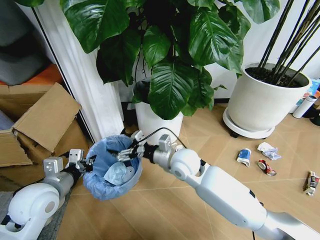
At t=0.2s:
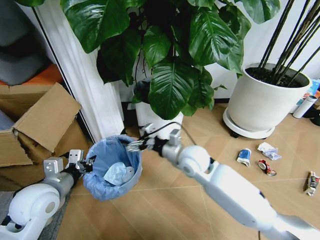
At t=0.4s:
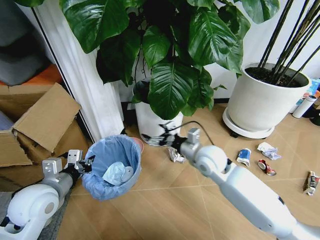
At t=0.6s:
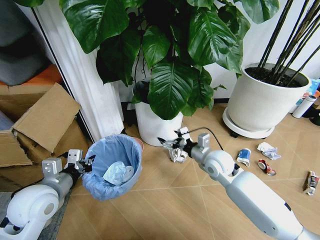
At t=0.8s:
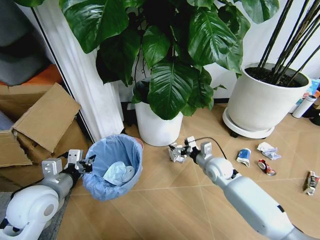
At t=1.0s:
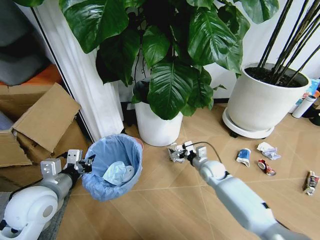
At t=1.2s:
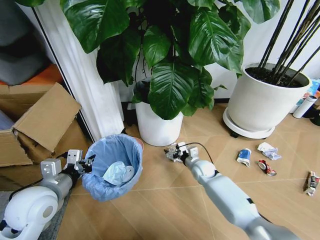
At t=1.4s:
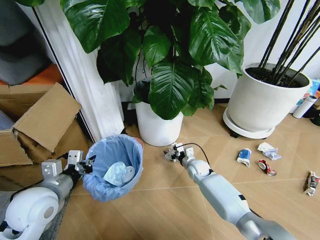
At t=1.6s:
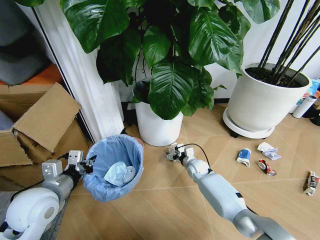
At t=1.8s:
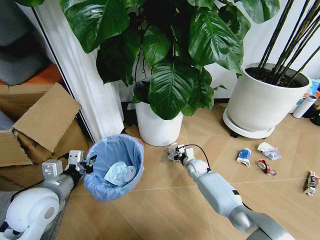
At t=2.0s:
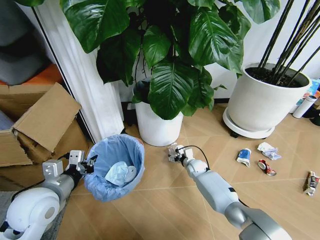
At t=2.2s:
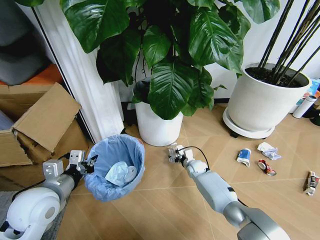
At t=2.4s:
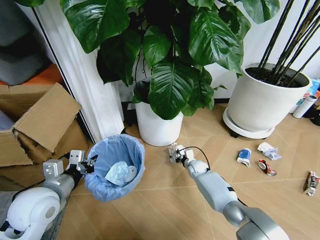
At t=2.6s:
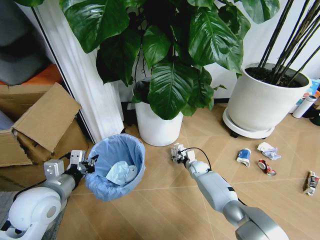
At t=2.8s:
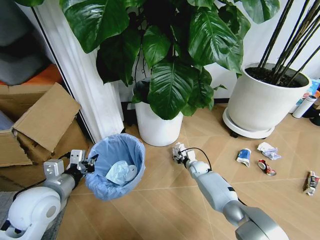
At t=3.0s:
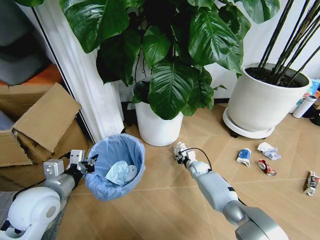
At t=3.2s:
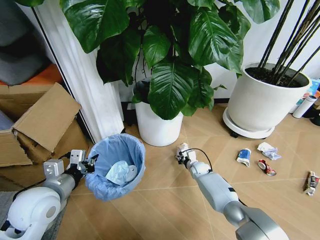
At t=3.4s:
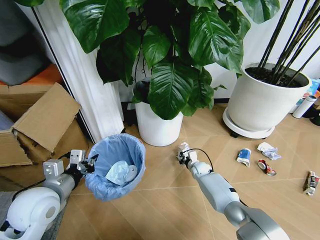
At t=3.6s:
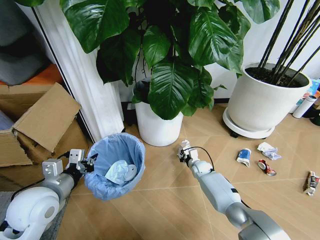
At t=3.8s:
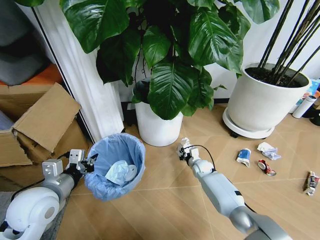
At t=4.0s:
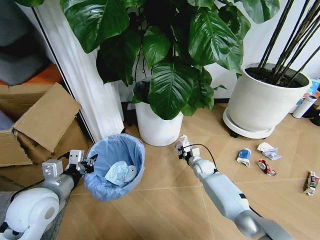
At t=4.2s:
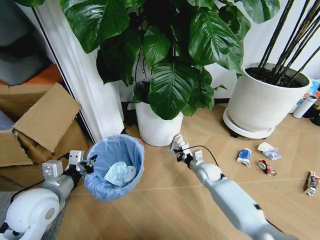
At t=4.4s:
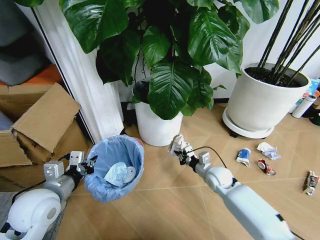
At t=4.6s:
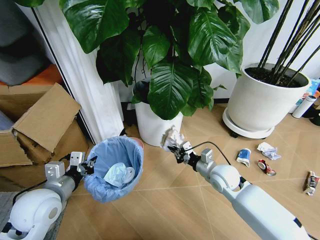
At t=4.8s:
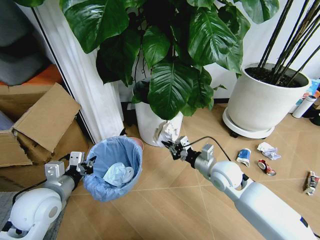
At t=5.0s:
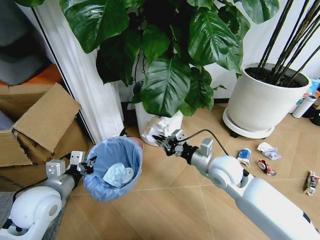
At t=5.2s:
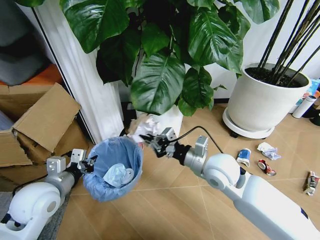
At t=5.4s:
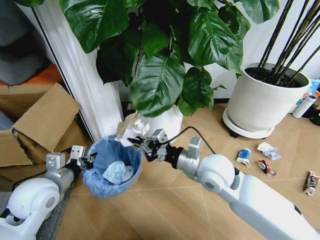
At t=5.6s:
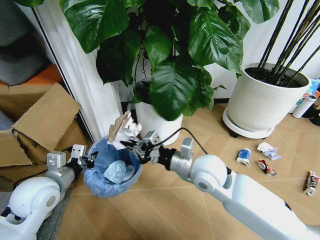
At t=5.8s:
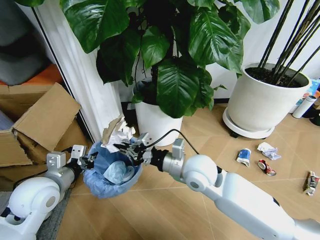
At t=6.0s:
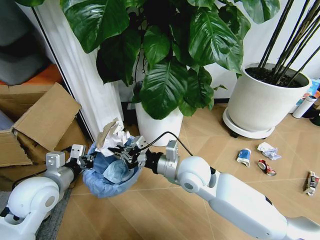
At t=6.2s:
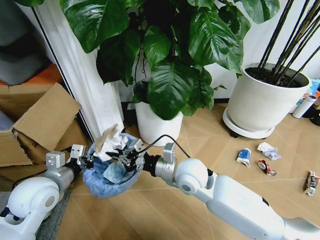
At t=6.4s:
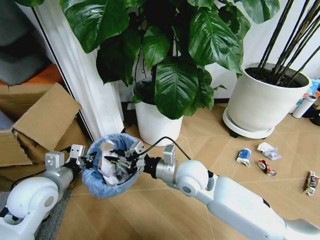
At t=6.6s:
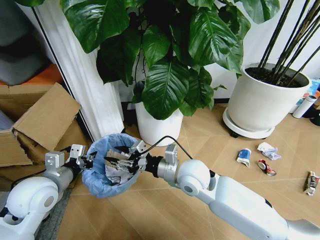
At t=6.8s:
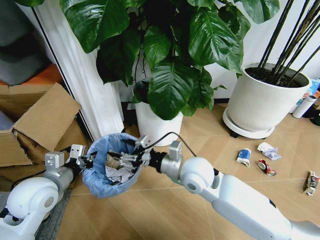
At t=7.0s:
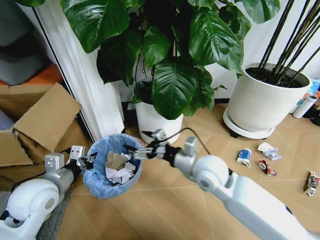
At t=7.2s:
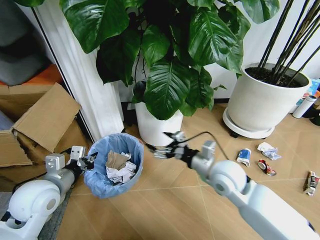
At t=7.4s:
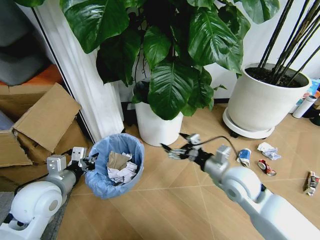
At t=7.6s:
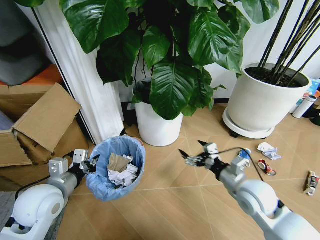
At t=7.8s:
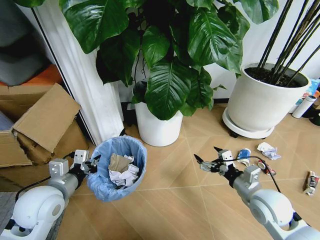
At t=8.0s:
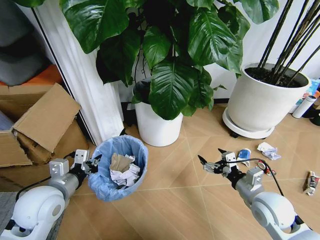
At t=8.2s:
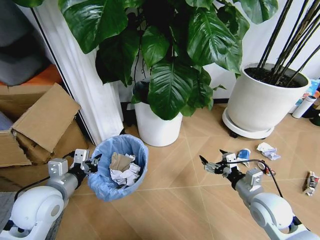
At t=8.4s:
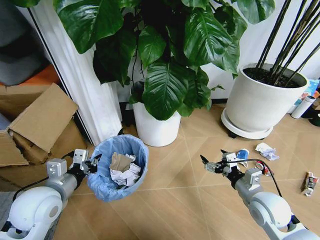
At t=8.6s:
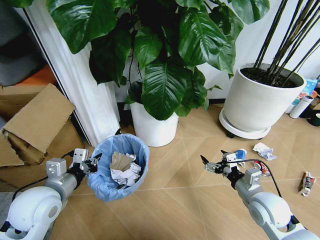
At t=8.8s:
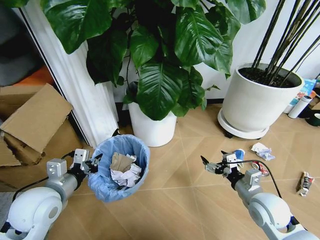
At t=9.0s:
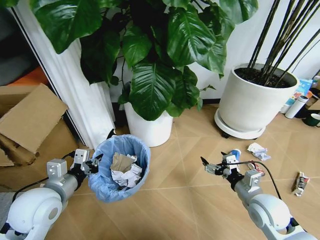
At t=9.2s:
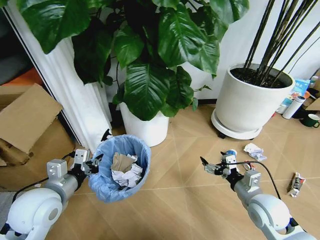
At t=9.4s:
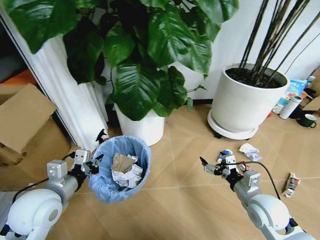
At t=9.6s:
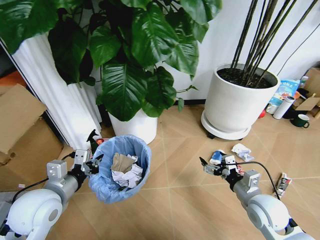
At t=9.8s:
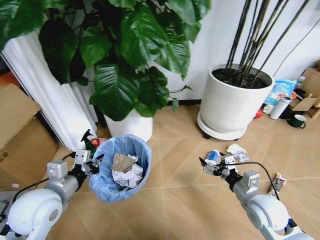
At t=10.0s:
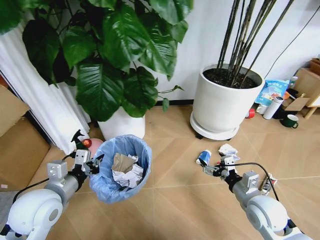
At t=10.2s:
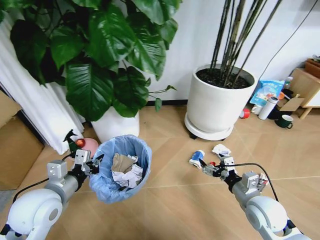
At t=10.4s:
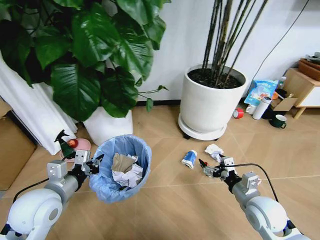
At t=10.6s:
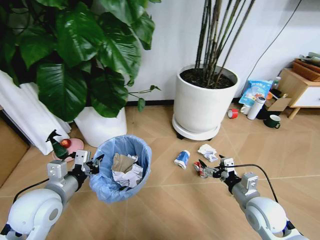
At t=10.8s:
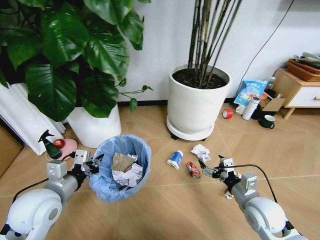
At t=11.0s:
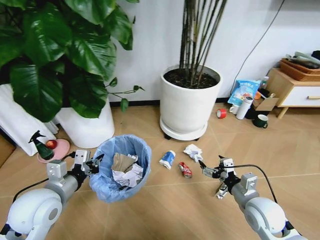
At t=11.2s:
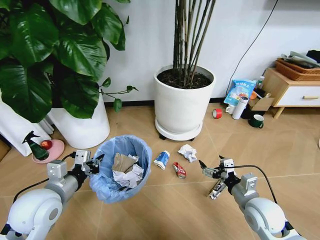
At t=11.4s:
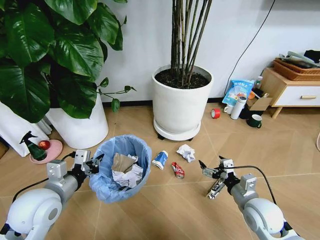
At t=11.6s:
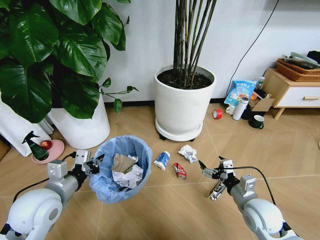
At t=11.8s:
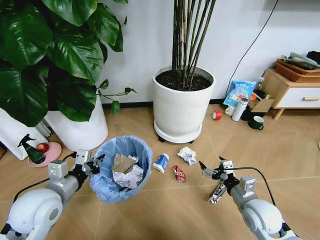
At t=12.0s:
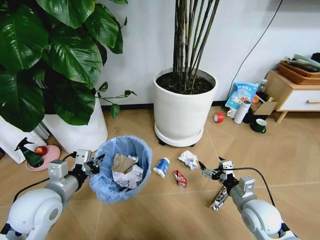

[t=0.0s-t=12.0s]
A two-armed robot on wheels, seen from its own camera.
Task of the whole recording: Pick up the trash bin and place the garbage on the floor into it.
t=0.0s to t=1.6s: The right gripper moves downward, to the right and forward, approximately 25 cm.
t=1.6s to t=3.0s: The right gripper ends up some 5 cm from where it was, and closes.
t=3.0s to t=4.4s: The right gripper moves upward and backward, some 15 cm.
t=4.4s to t=6.0s: The right gripper is displaced upward and to the left by some 25 cm.
t=6.0s to t=7.6s: The right gripper travels to the right by some 20 cm, and opens up.
t=7.6s to t=9.0s: The right gripper ends up about 5 cm from where it was.

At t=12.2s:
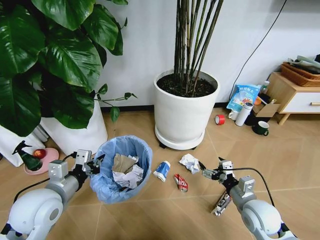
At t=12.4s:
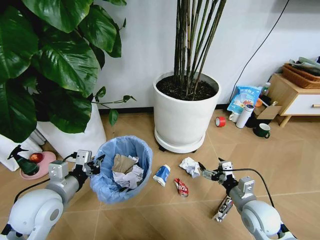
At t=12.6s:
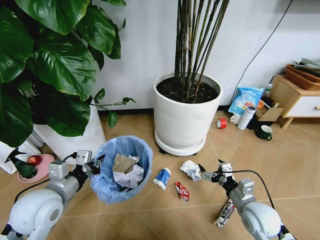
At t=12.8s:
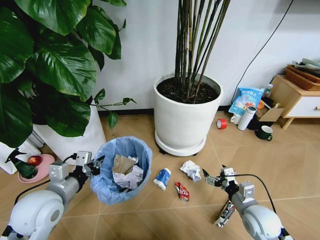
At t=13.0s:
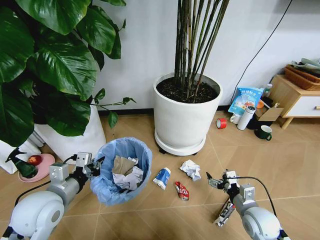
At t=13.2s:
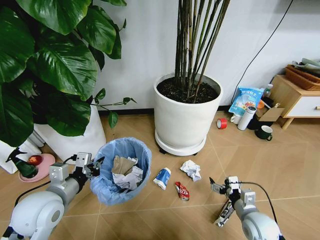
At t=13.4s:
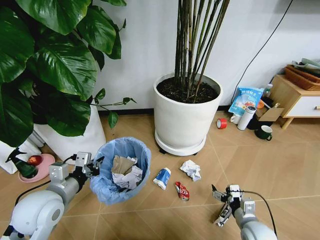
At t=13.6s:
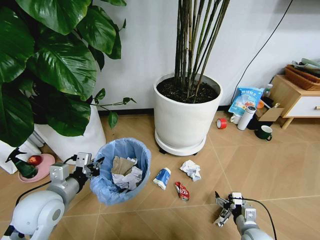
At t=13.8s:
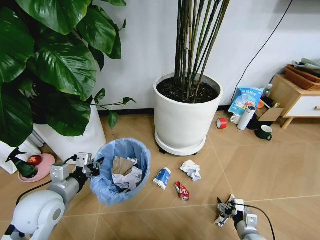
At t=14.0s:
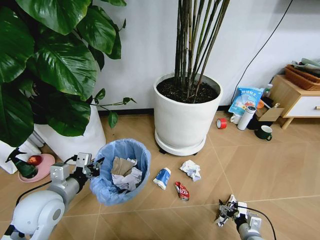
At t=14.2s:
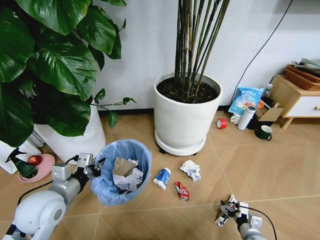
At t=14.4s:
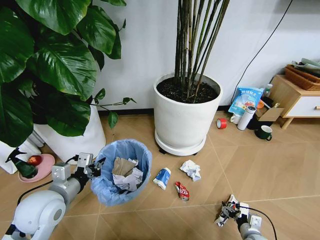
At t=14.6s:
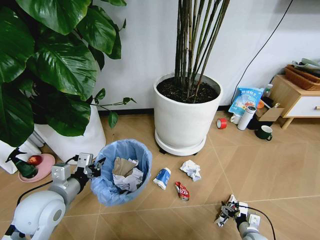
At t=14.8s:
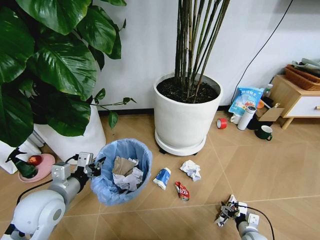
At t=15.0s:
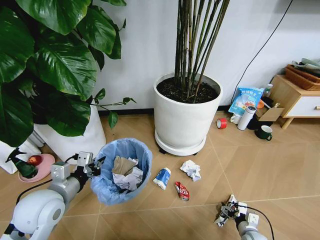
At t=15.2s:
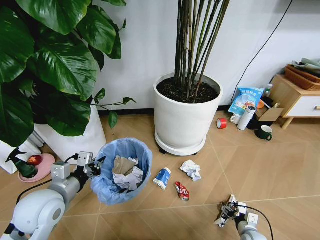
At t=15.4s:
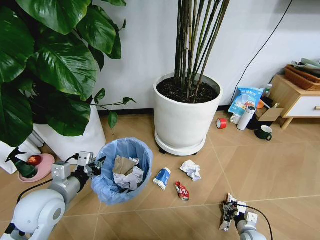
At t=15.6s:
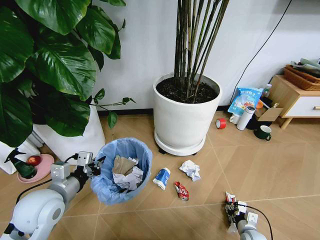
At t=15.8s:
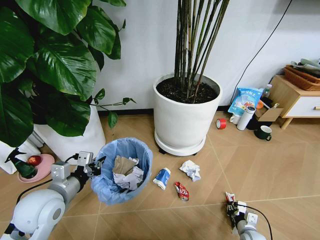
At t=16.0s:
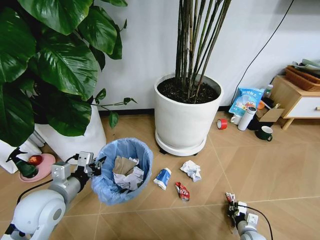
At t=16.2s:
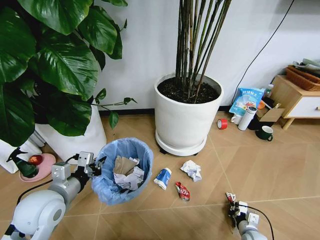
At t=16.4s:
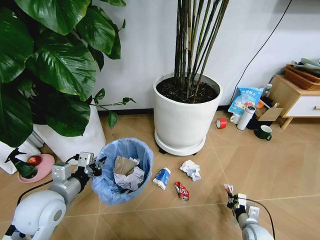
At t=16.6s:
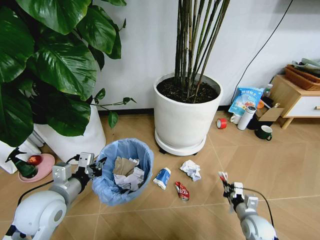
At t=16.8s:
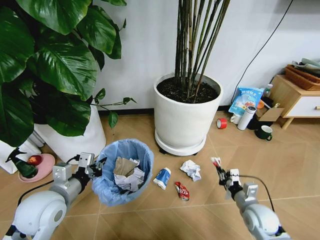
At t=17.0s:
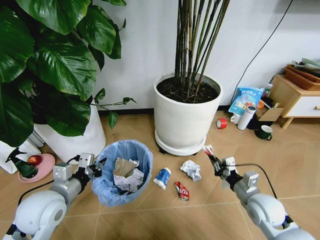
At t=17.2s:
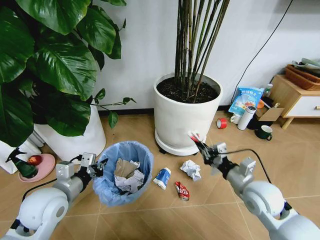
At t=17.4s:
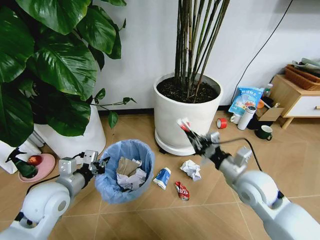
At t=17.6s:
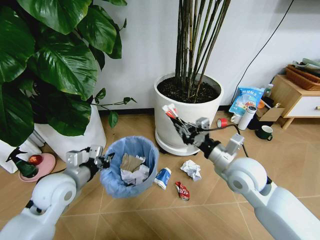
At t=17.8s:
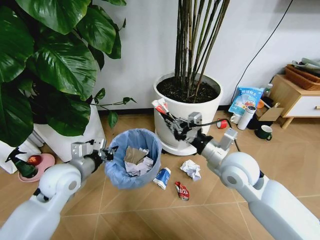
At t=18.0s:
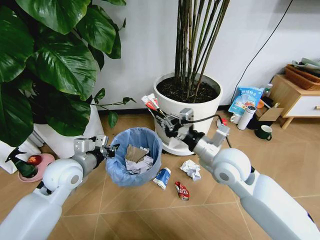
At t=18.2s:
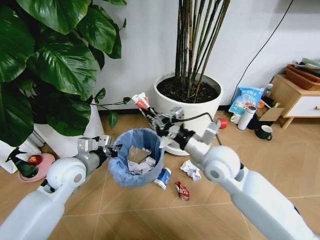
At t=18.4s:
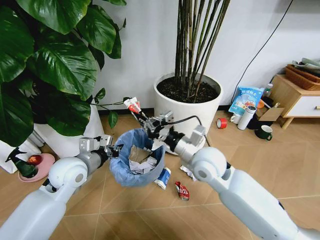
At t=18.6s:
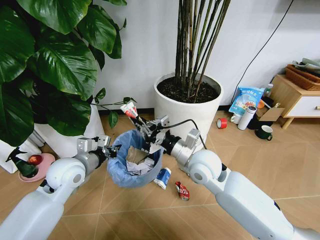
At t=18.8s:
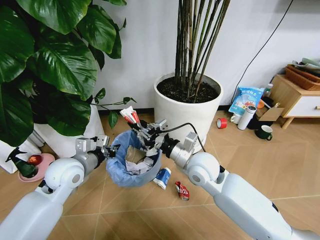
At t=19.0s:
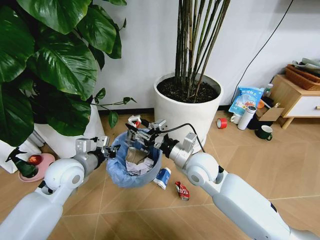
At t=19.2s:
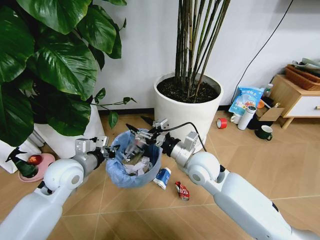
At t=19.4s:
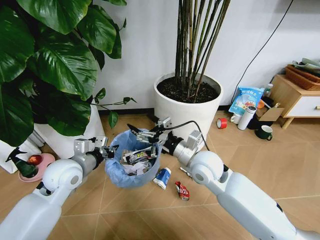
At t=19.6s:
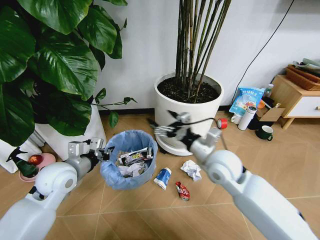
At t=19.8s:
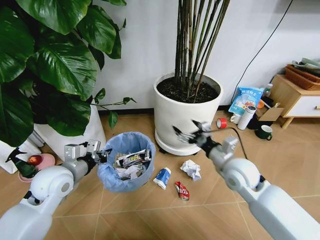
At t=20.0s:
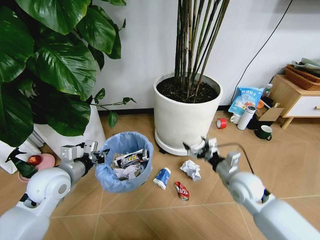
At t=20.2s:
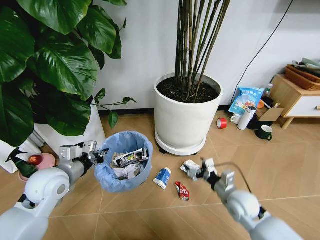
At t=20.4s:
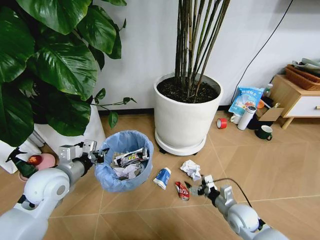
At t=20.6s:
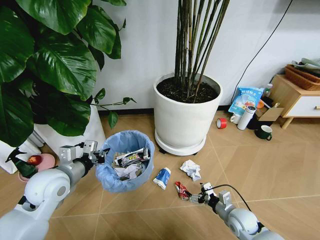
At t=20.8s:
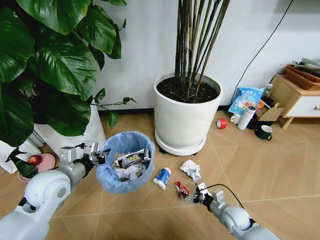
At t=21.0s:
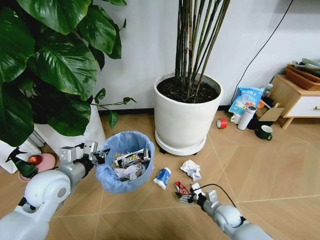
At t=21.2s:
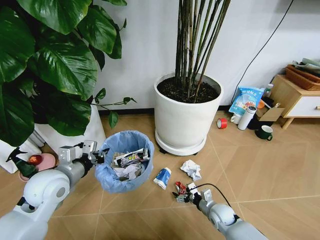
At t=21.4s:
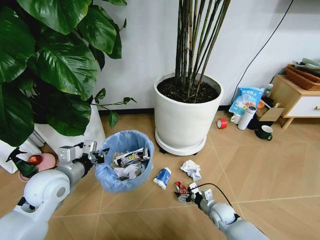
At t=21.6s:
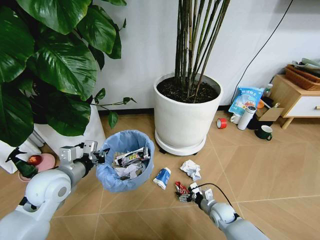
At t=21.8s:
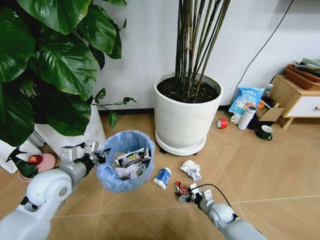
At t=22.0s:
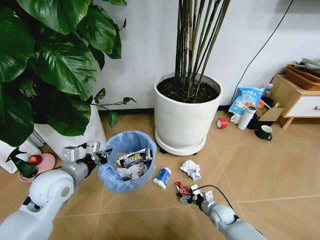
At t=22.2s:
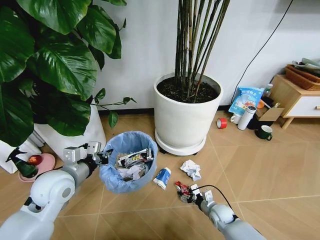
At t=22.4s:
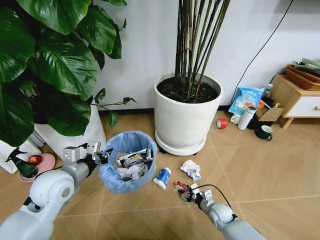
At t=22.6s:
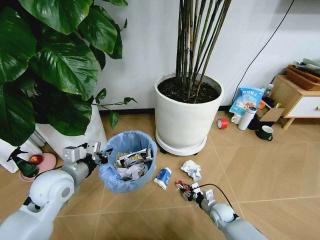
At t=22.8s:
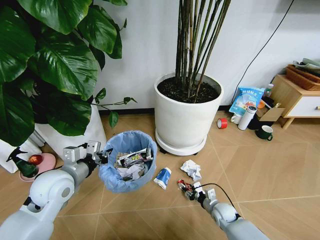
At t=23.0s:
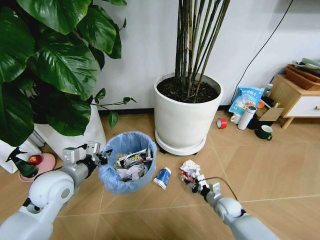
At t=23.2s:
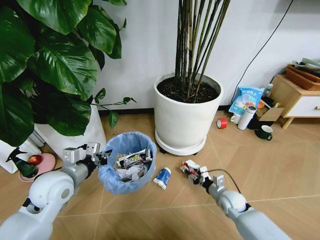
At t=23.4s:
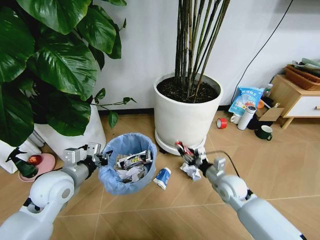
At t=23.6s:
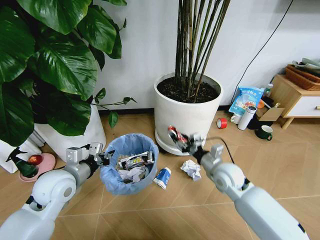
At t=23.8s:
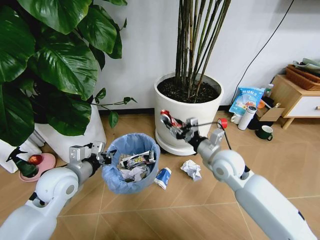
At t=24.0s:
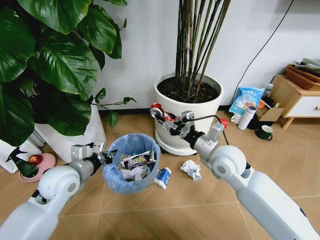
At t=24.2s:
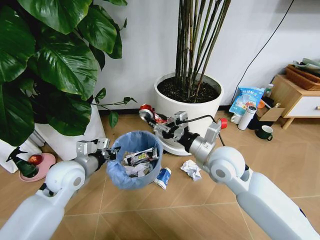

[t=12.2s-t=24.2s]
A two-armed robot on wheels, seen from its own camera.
Task of the whole recording: Pick up the trash bin and place the garbage on the floor into it.
t=12.2s to t=13.8s: The right gripper is displaced downward by approximately 15 cm.
t=13.8s to t=15.2s: The right gripper is displaced downward by approximately 5 cm.
t=15.2s to t=16.6s: The right gripper shifts roughly 10 cm upward, and closes.
t=16.6s to t=18.2s: The right gripper is displaced upward and to the left by approximately 35 cm. The left gripper travels forward by roughly 10 cm.
t=18.2s to t=19.8s: The right gripper goes approximately 10 cm to the right and downward, and opens up.
t=19.8s to t=21.2s: The right gripper moves downward, approximately 25 cm.
t=21.2s to t=22.6s: The right gripper closes up.
t=22.6s to t=24.2s: The right gripper is displaced upward by roughly 35 cm.
